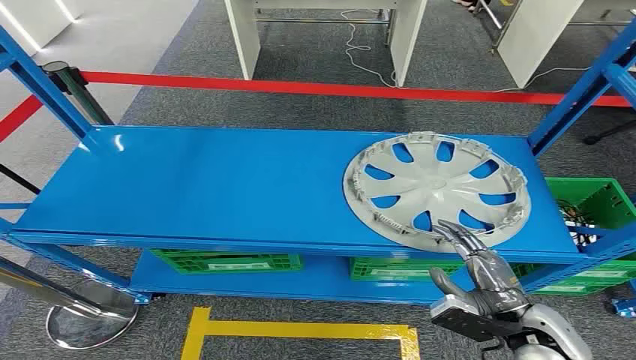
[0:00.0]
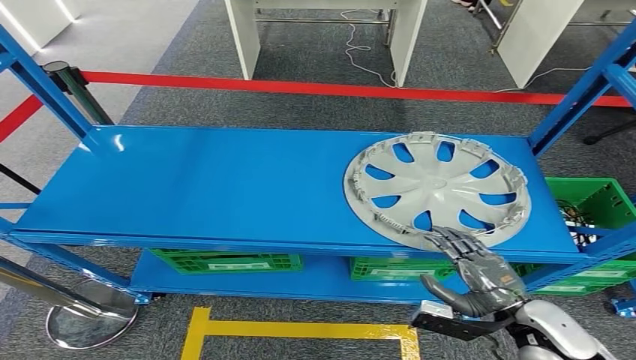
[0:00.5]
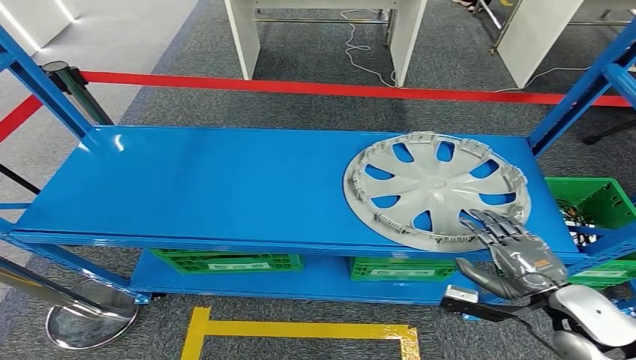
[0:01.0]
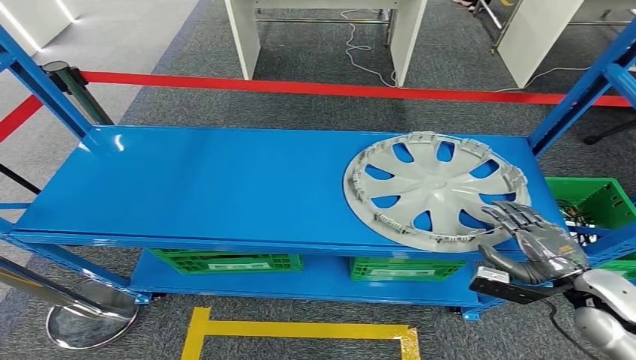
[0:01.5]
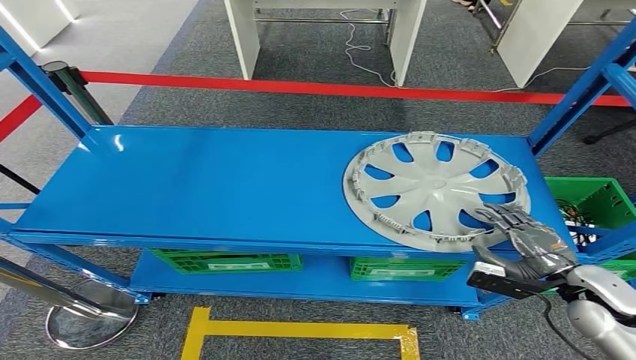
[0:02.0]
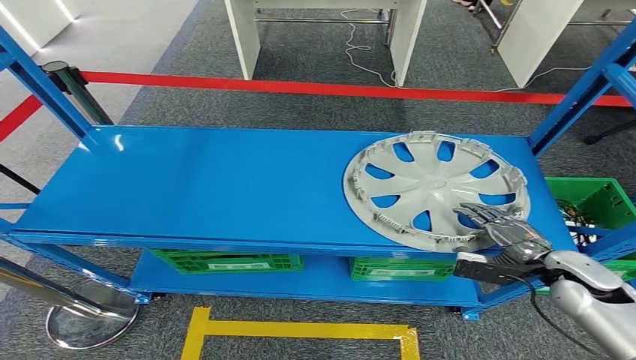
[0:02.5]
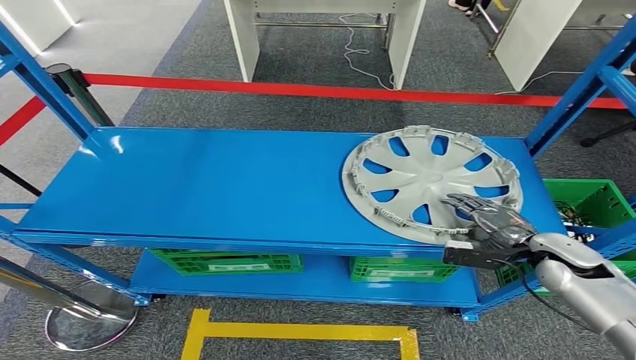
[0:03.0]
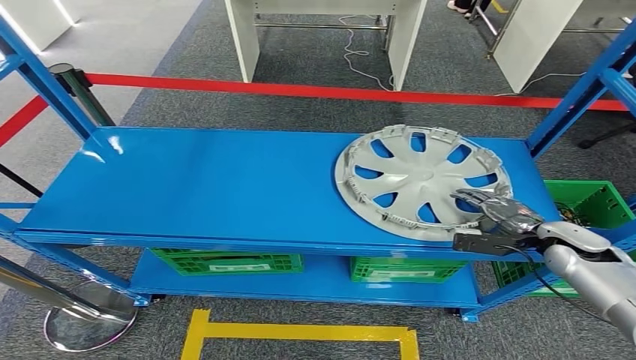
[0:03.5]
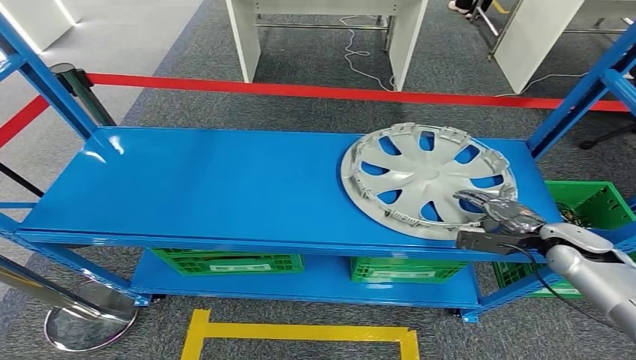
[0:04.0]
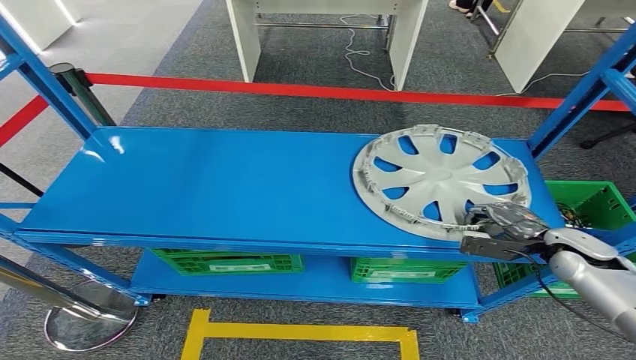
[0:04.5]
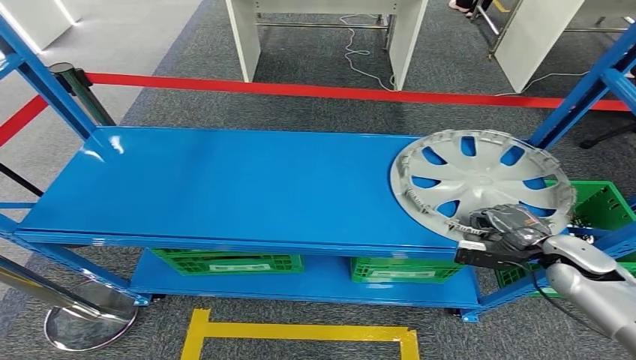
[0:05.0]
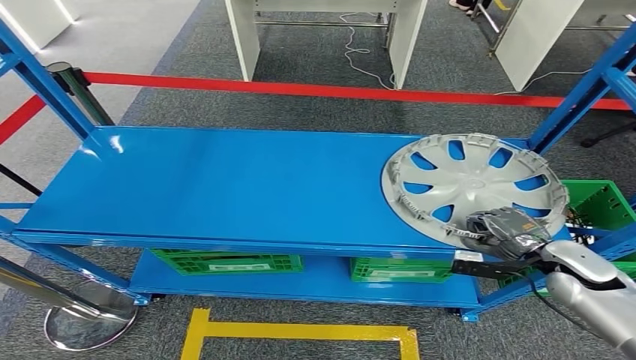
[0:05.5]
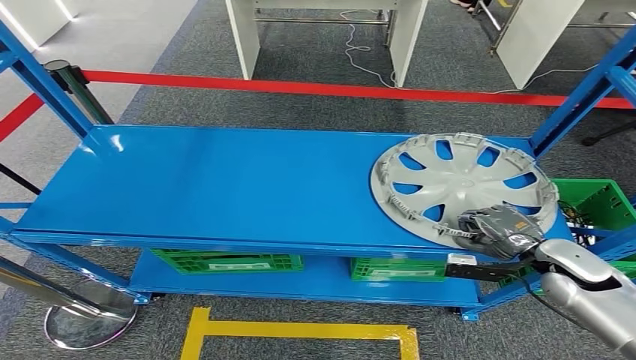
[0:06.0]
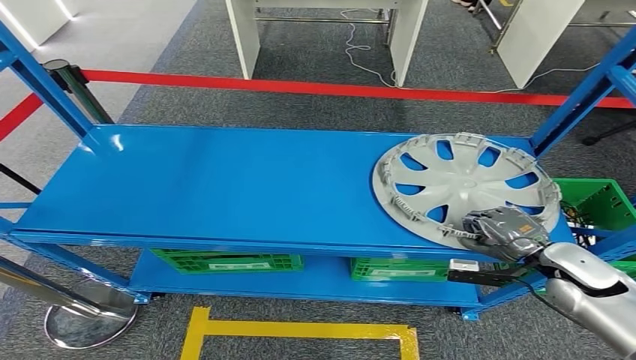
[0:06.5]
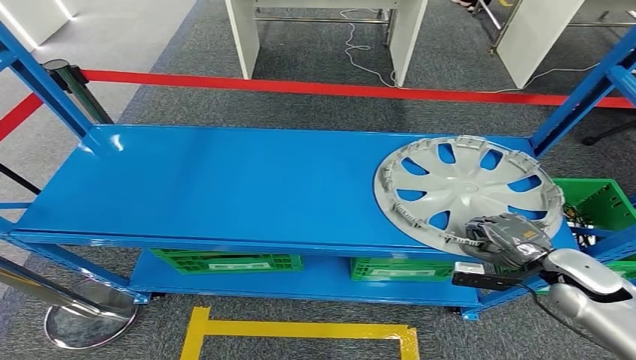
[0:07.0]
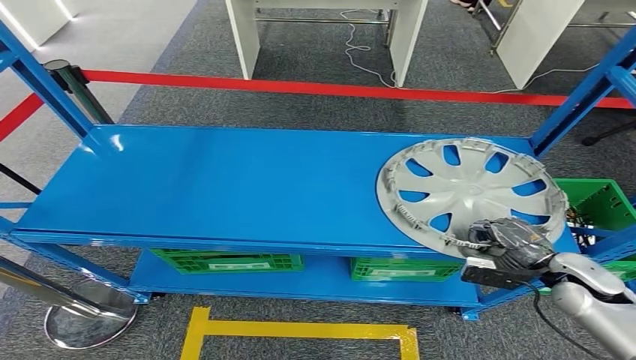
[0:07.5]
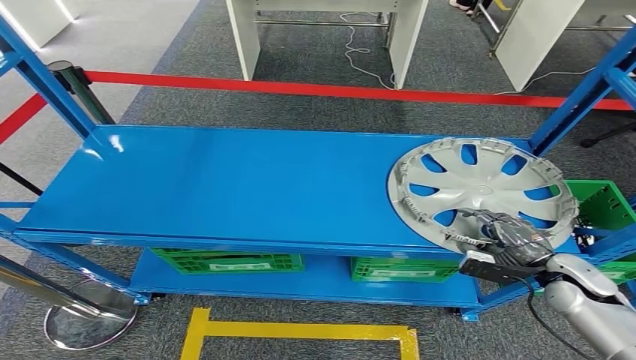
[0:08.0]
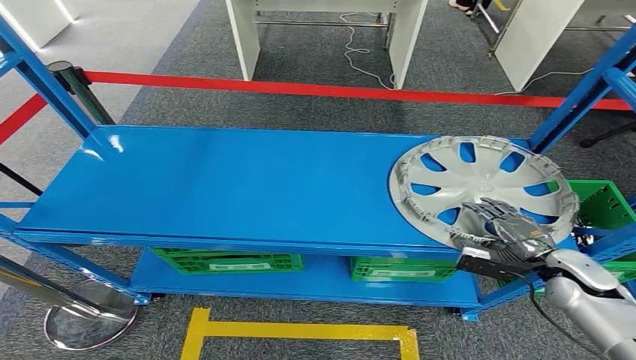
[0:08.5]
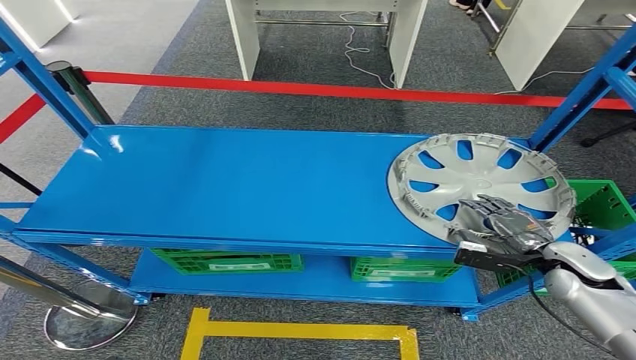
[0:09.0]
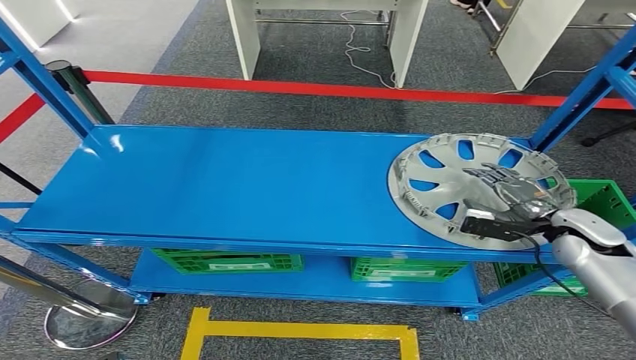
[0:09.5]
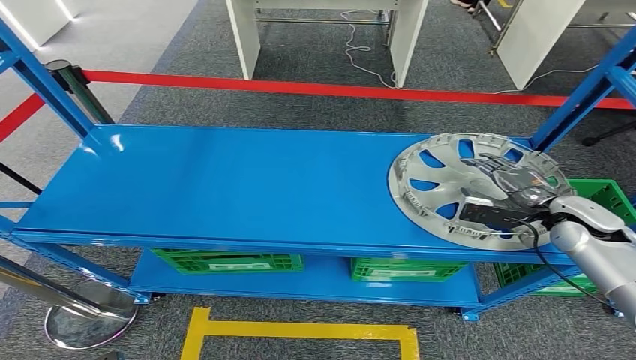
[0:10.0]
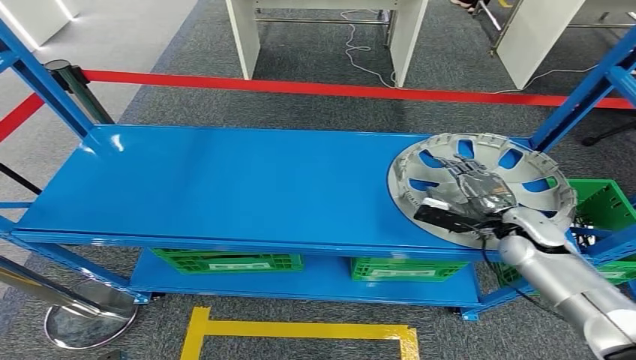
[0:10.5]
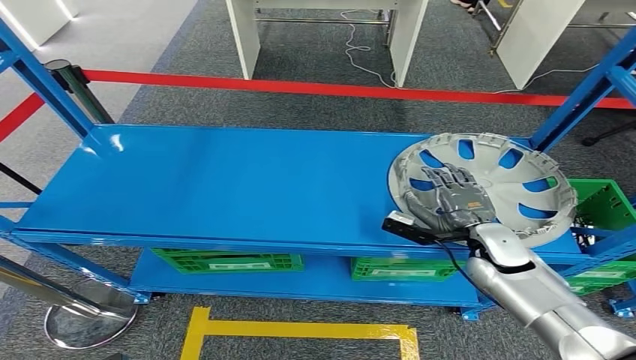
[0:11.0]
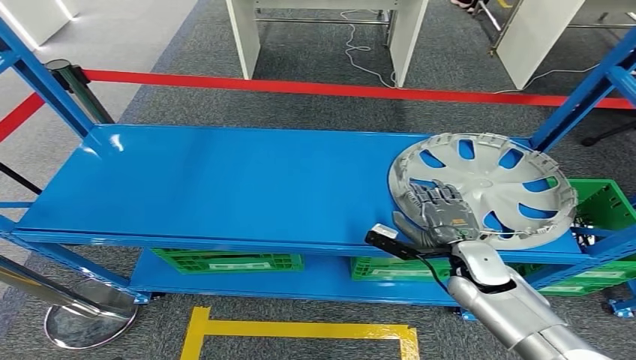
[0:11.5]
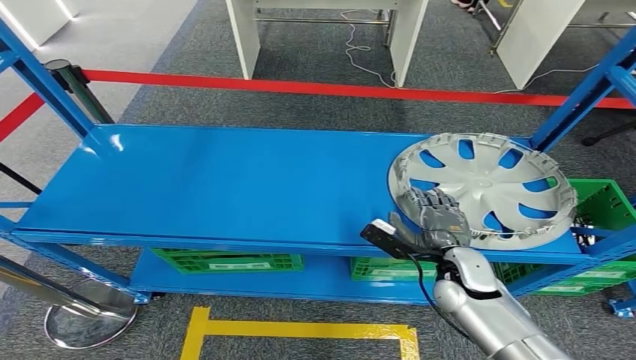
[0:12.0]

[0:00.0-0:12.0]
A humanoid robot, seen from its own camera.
0:02.0 to 0:04.0: The right hand heads forward, covering roughly 10 cm.
0:04.0 to 0:06.0: The right hand ends up approximately 5 cm from where it was.
0:06.0 to 0:08.0: The hands stay close to where they were, moving slightly.
0:08.0 to 0:10.0: The right hand heads forward and upward, covering roughly 15 cm.
0:10.0 to 0:12.0: The right hand goes some 20 cm to the left and downward.

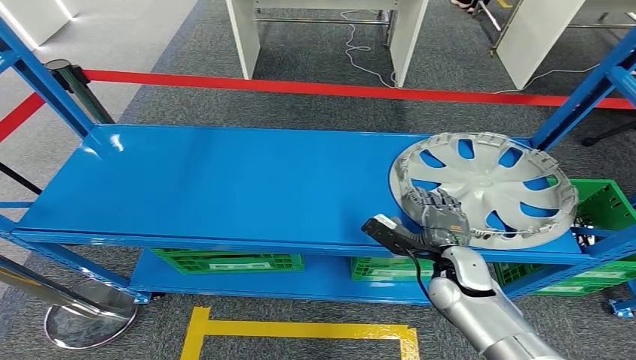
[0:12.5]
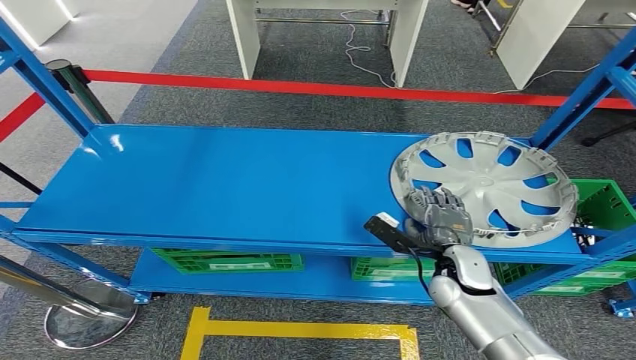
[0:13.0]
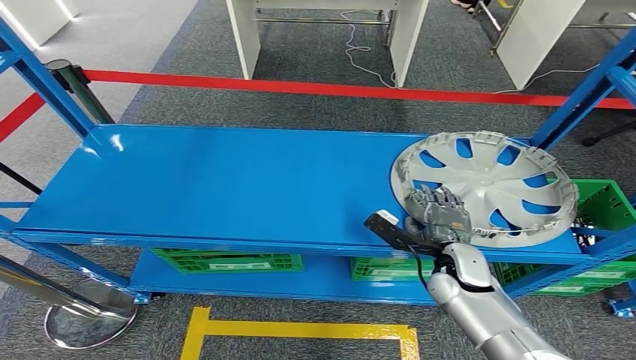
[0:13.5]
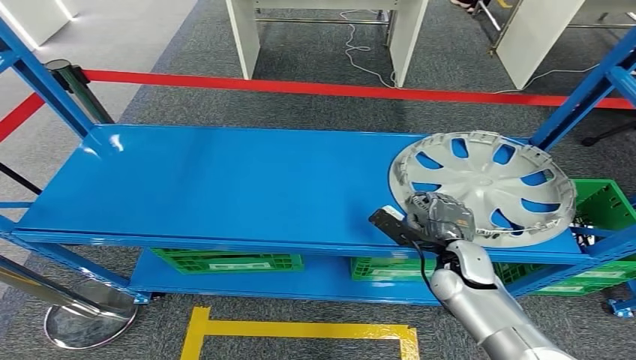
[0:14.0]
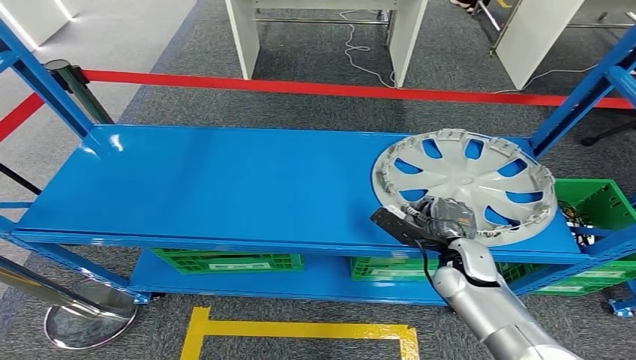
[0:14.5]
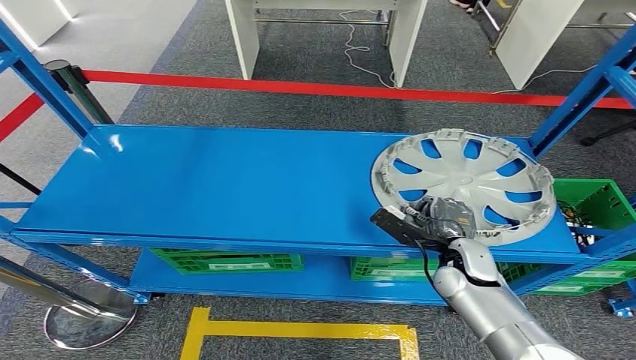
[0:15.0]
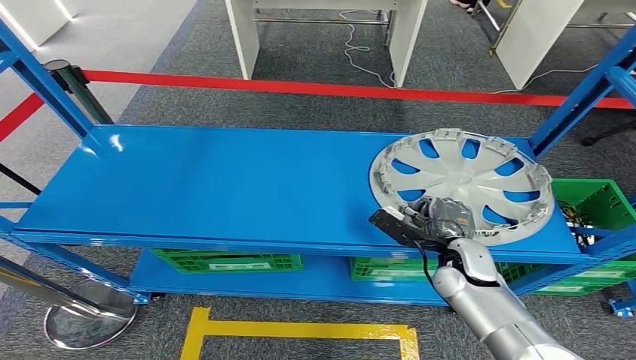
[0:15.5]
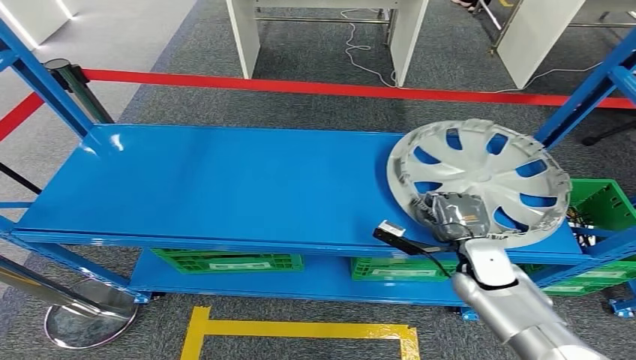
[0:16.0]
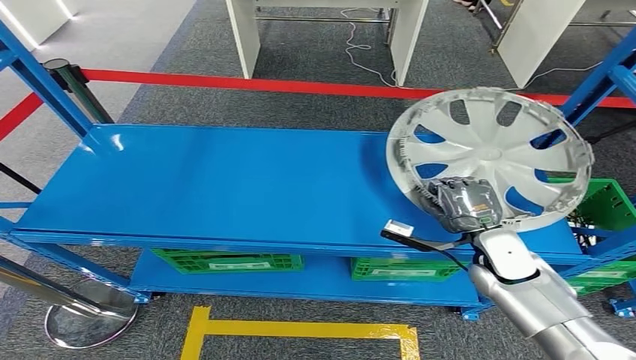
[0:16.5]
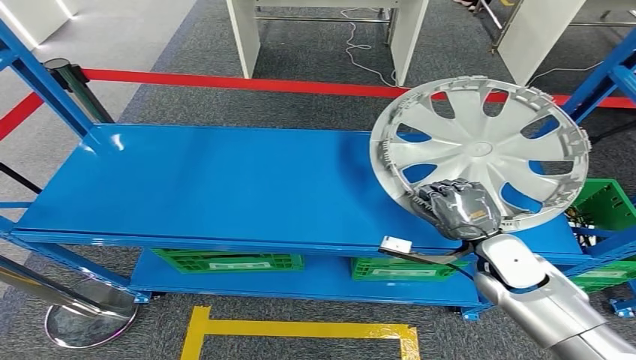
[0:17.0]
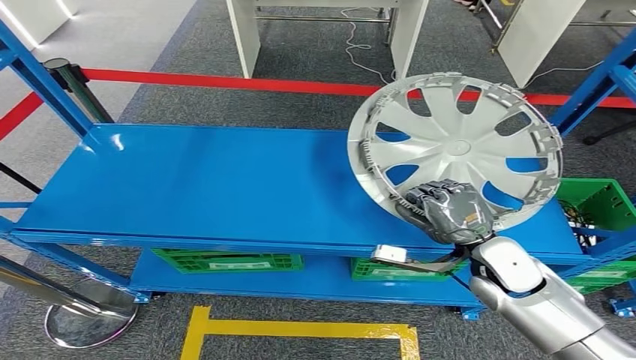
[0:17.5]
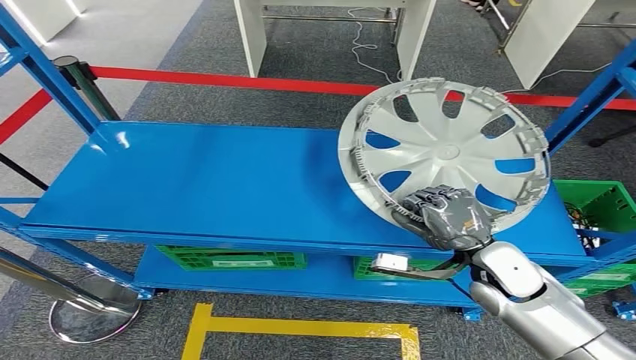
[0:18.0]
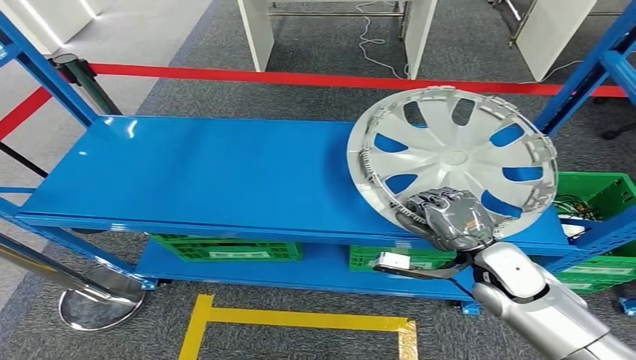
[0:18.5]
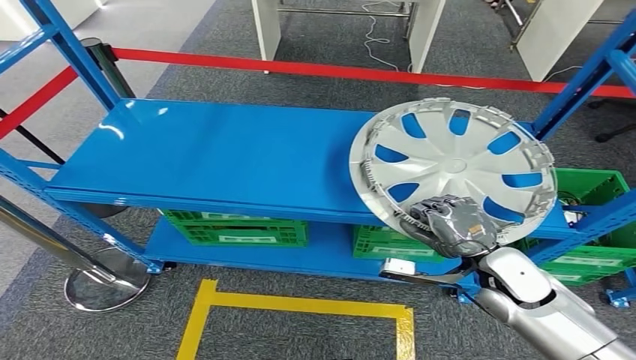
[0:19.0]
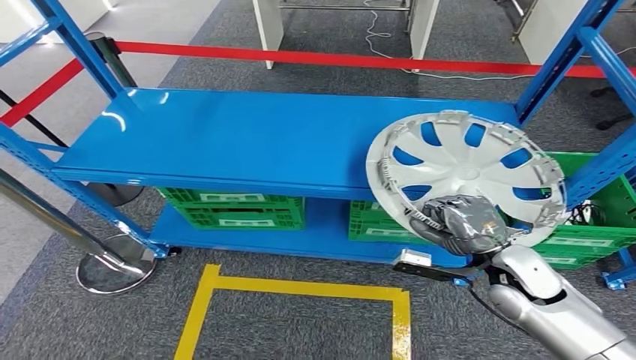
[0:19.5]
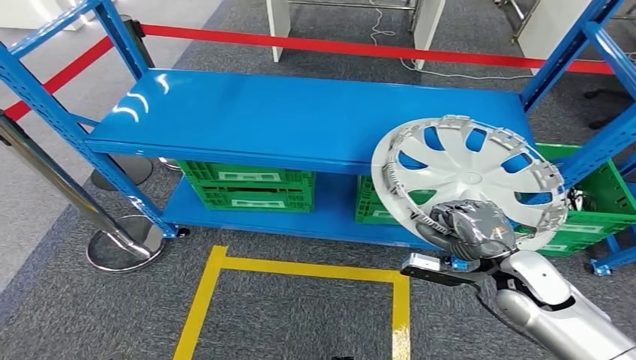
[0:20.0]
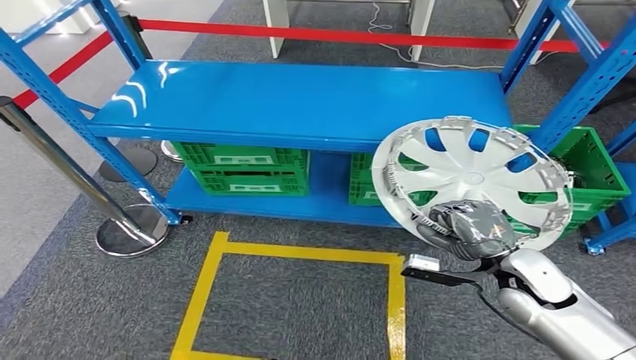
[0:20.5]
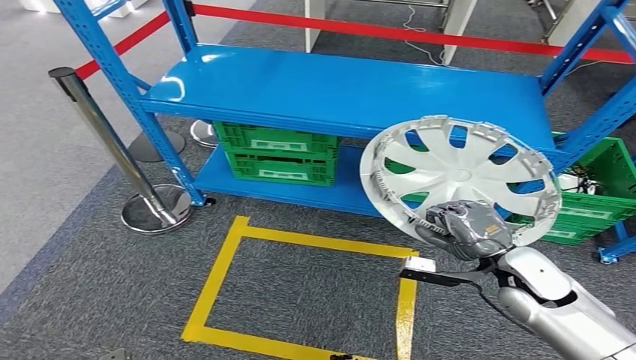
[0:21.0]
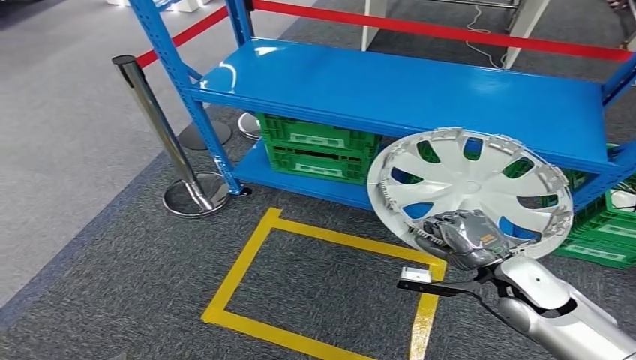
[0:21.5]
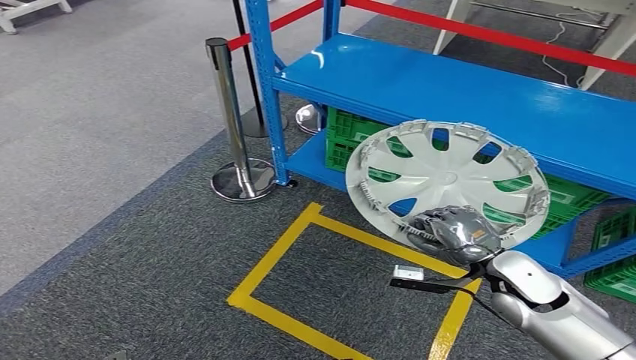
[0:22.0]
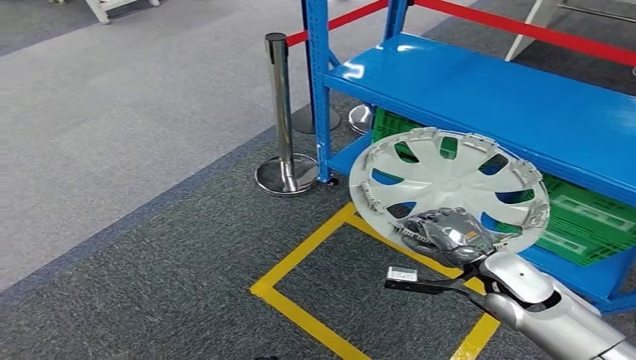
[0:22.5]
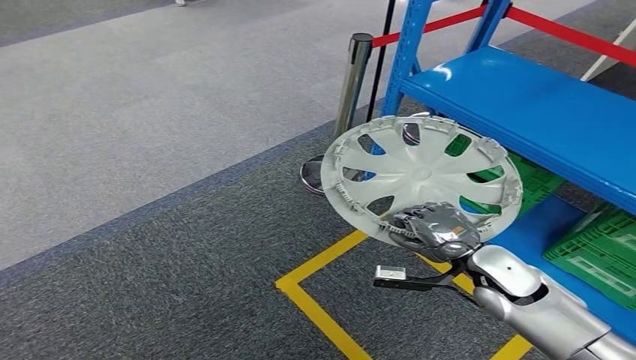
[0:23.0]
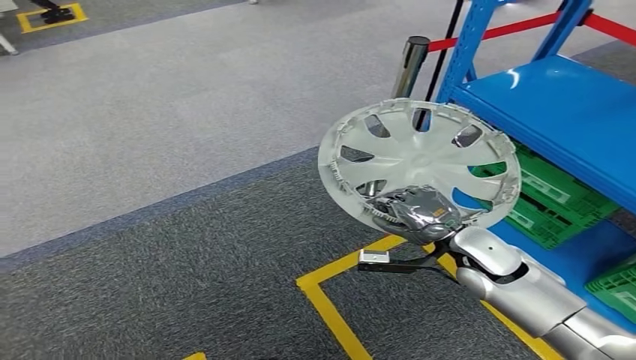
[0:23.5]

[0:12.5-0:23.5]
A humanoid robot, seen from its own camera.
Step, 0:12.5 to 0:17.5: Pick up the small component from the shelf.
0:12.5 to 0:14.5: The hands stay close to where they were, moving slightly.
